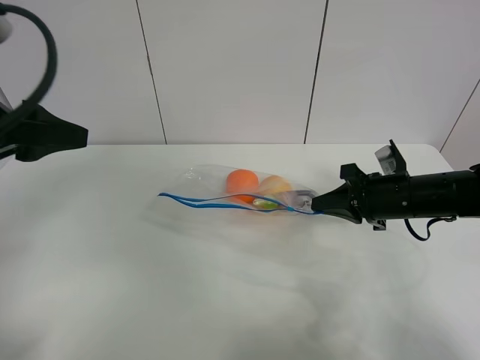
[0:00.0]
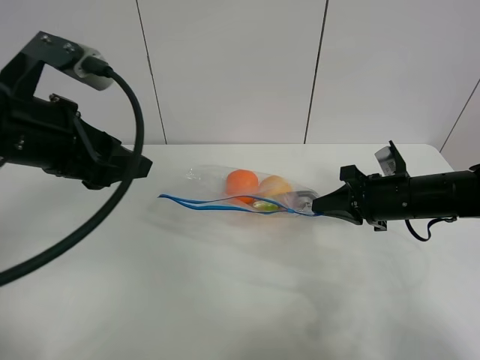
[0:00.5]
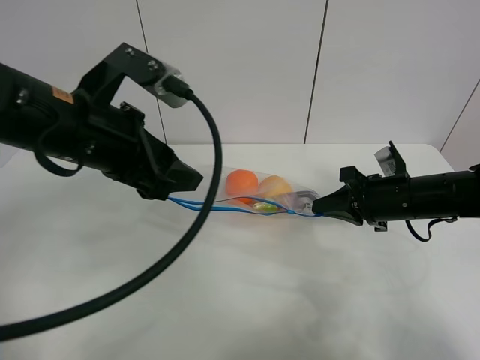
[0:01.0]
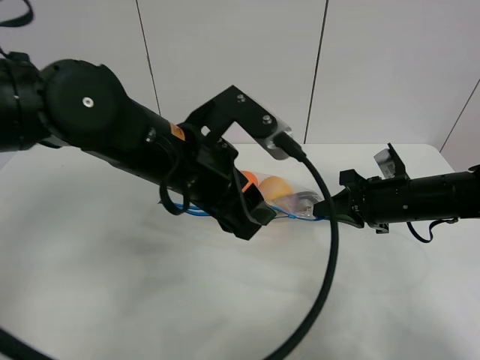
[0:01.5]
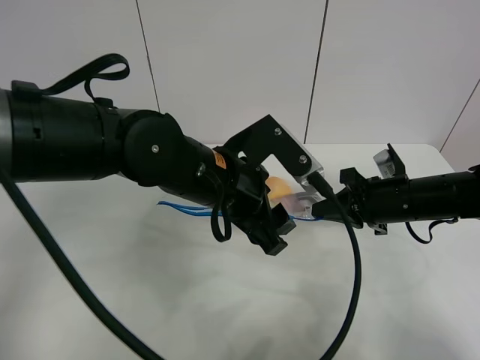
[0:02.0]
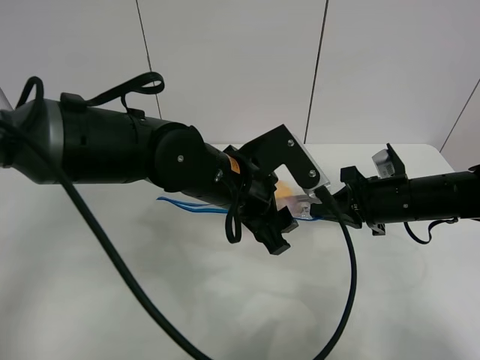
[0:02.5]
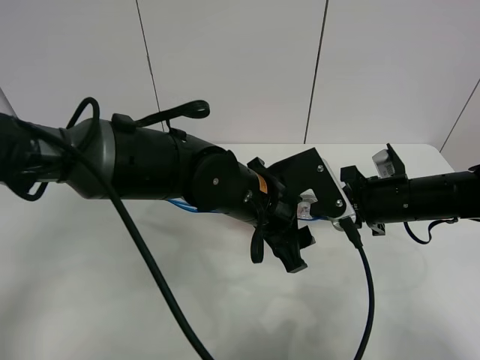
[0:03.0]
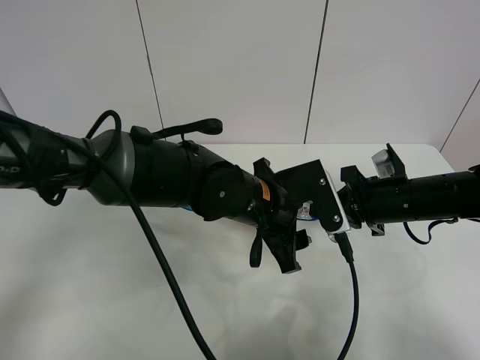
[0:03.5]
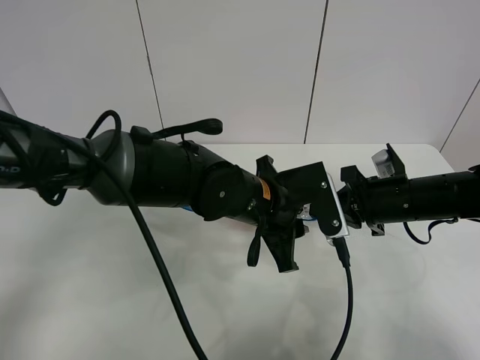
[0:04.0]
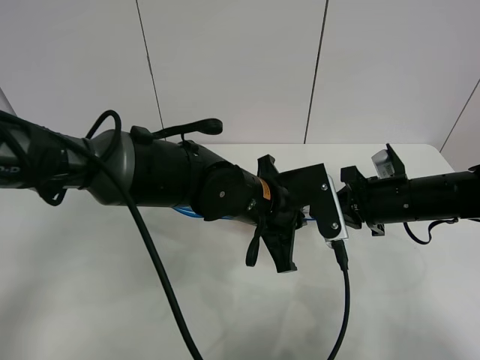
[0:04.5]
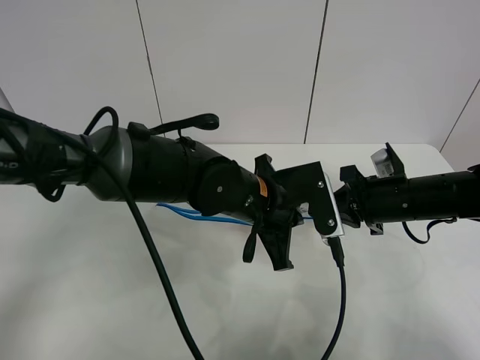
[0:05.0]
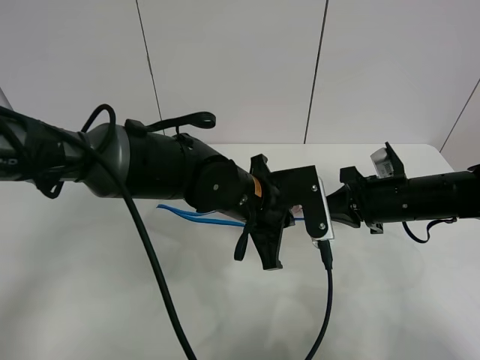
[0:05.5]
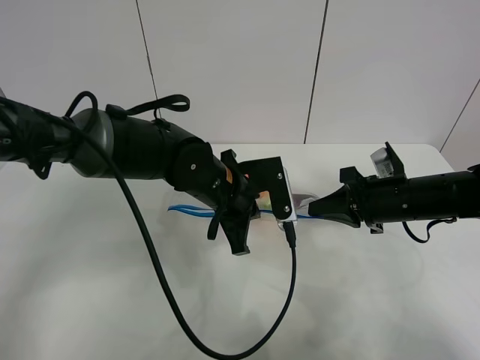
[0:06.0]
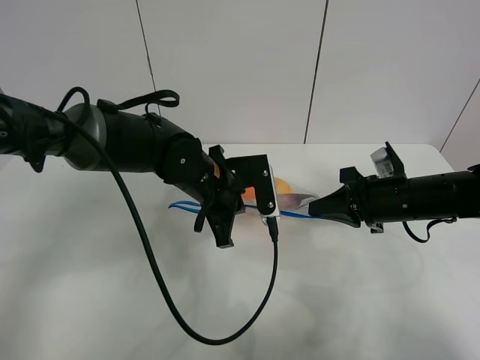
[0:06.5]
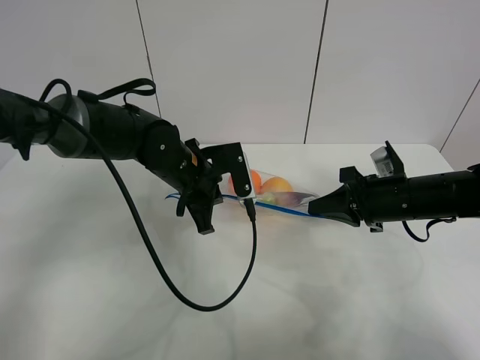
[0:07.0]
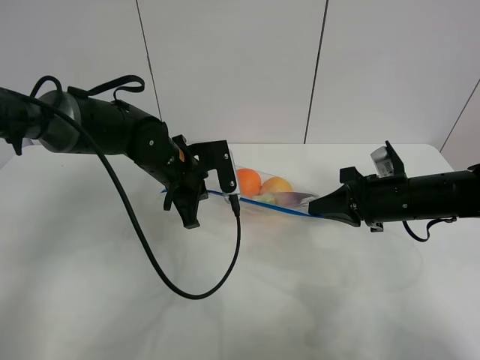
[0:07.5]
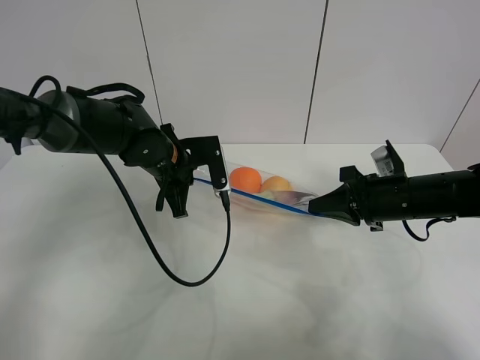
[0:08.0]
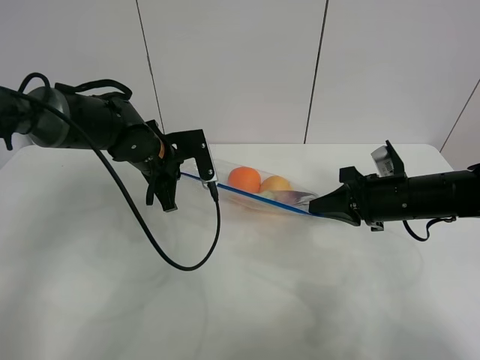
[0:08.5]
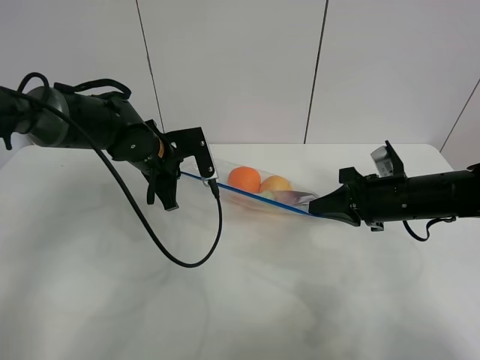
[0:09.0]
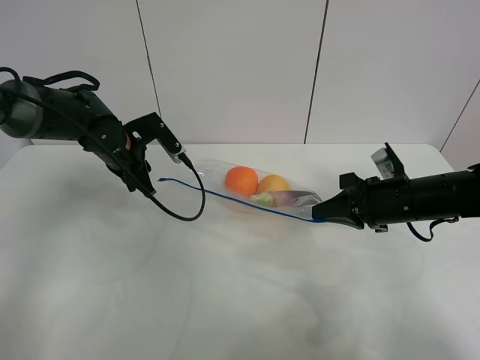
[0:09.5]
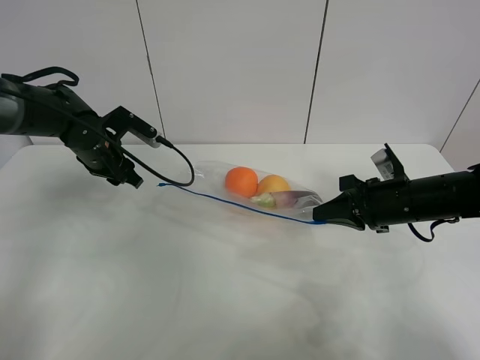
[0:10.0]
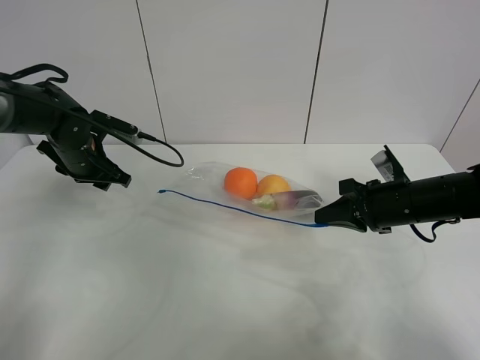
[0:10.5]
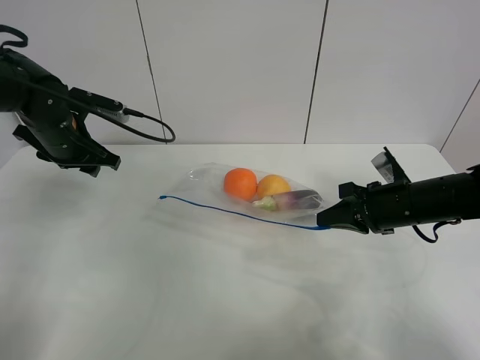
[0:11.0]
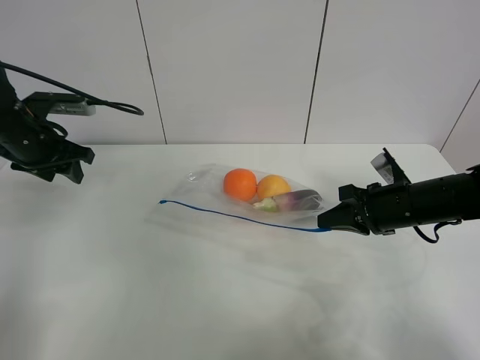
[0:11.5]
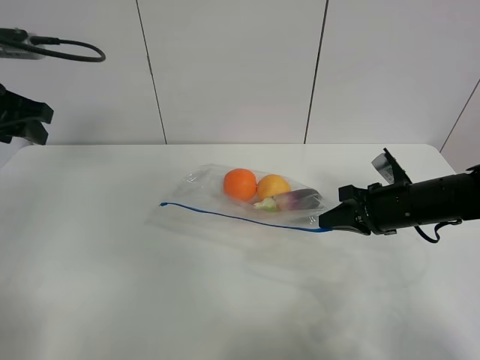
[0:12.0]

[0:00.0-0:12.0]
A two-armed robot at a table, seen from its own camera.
Step, 0:00.0 to 0:09.0: Pull the fruit bag with left gripper.
0:00.0 to 0:02.0: The left gripper heads to the right and downward, covering approximately 25 cm.
0:02.0 to 0:04.0: The left gripper heads downward, covering about 5 cm, and closes up.
0:04.0 to 0:06.0: The left gripper moves to the left, some 5 cm, and closes up.
0:06.0 to 0:08.0: The left gripper is displaced to the left and forward by approximately 10 cm.
0:08.0 to 0:10.0: The left gripper heads to the left, covering about 10 cm, and opens its fingers.
0:10.0 to 0:12.0: The left gripper shifts approximately 20 cm upward, backward and to the left.

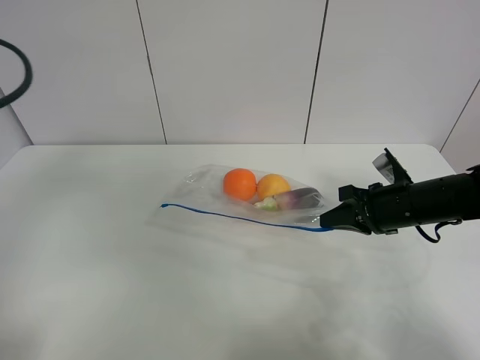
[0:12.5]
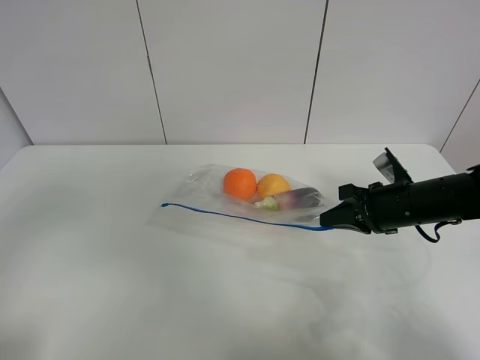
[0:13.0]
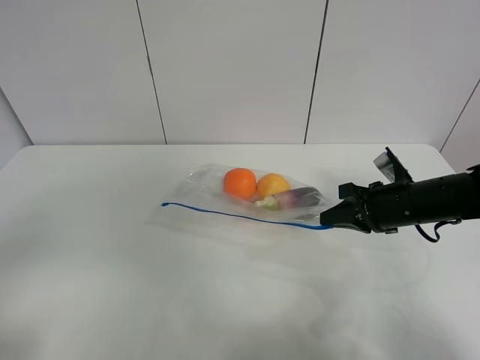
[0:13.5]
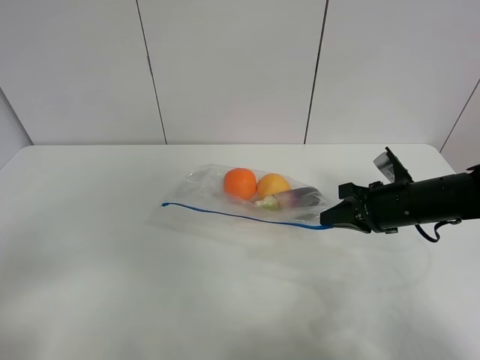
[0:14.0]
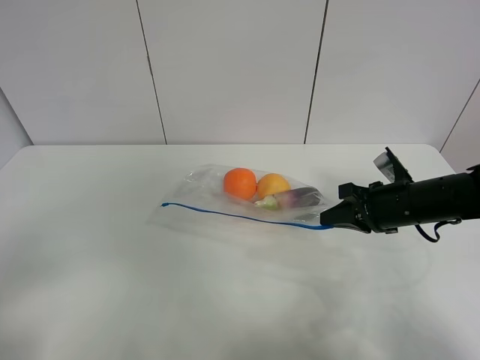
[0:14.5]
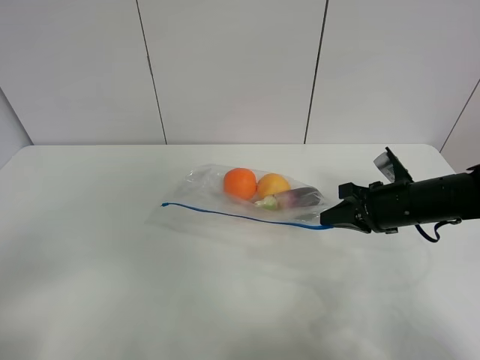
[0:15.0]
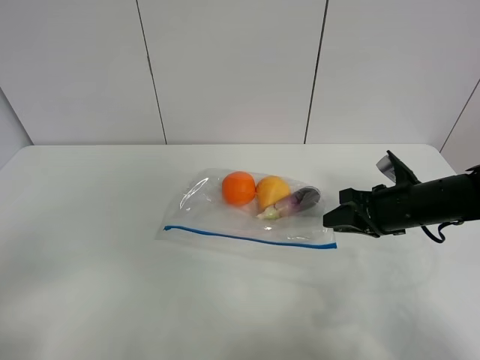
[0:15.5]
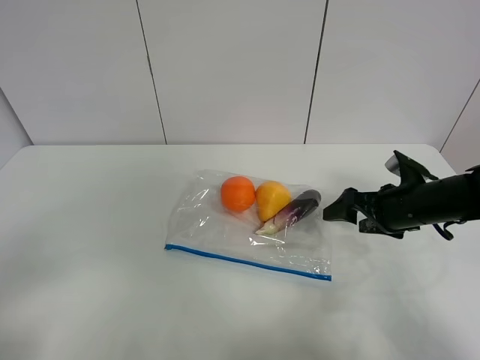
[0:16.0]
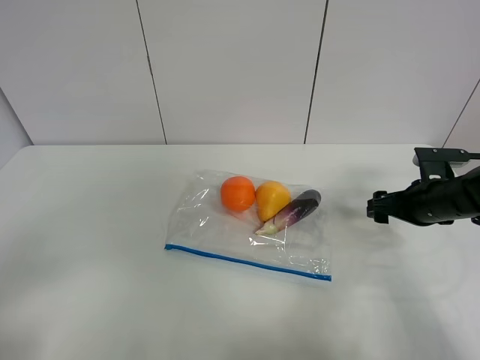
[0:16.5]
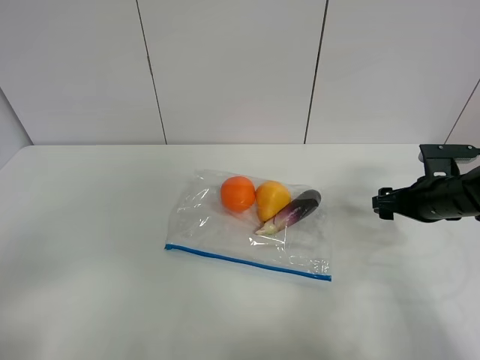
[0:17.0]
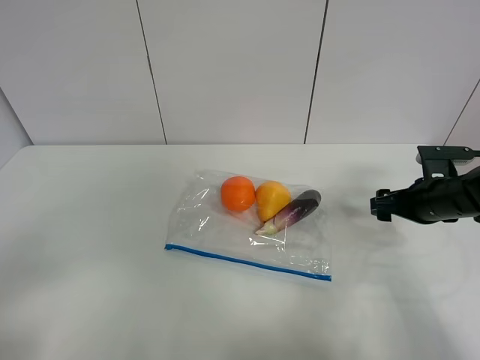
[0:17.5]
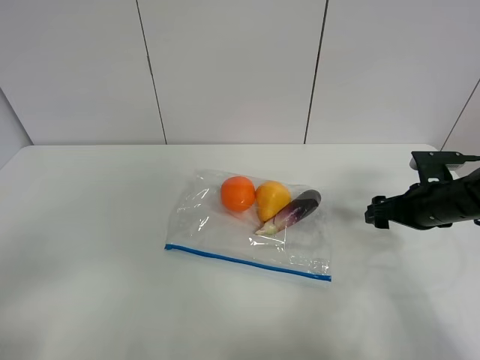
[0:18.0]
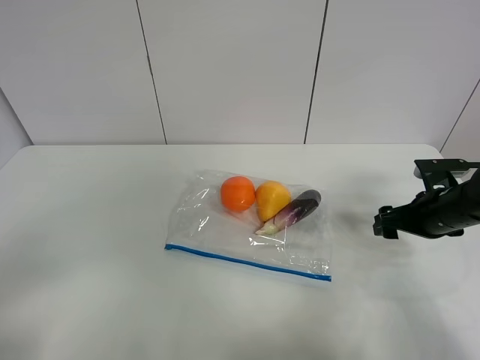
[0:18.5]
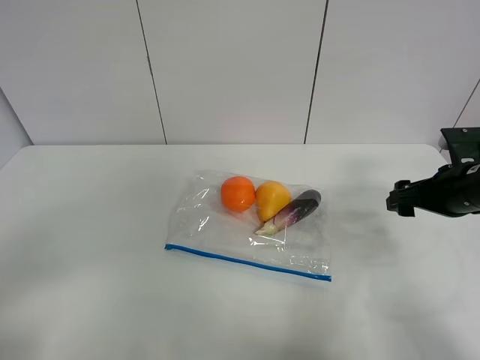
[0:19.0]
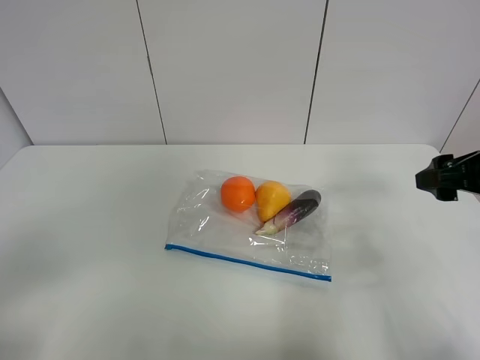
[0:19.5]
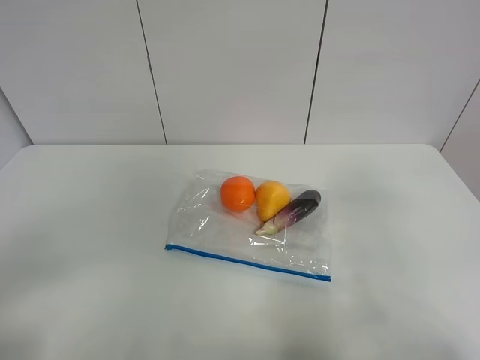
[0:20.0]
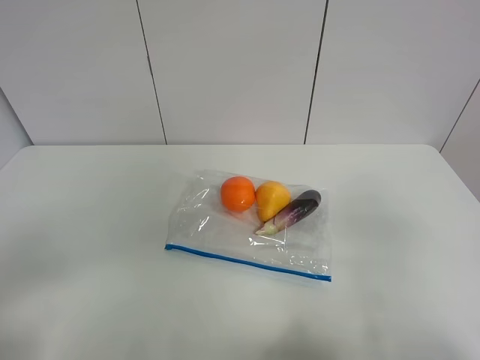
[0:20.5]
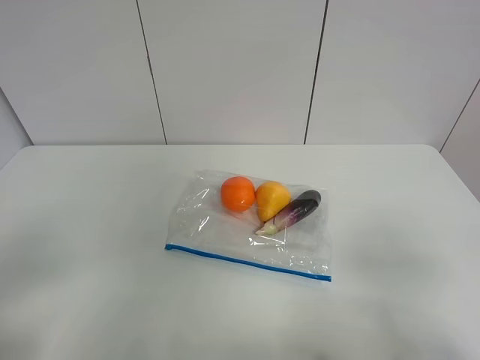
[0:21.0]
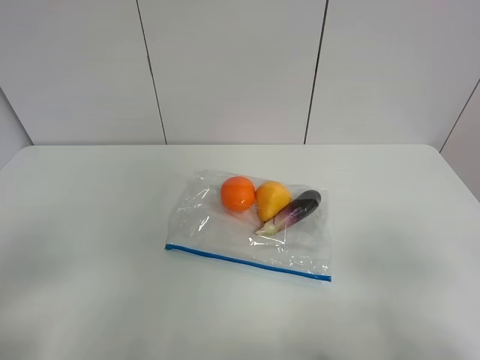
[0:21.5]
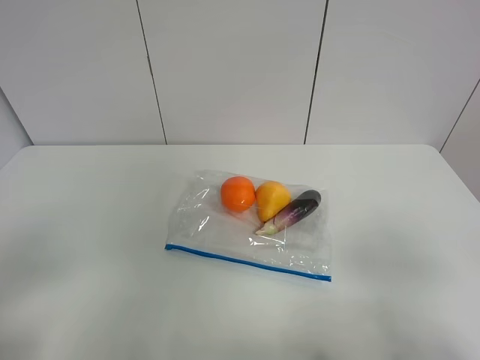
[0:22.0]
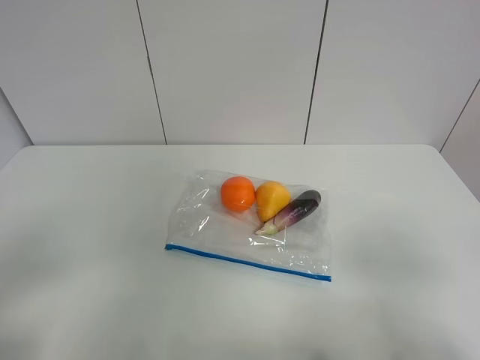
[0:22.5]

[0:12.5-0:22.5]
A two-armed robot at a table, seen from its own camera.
0:12.5 to 0:14.5: The left gripper heads backward, covering roughly 20 cm.
0:14.5 to 0:16.5: The right gripper moves to the right, roughly 5 cm, and opens.
0:16.5 to 0:18.5: There are only small adjustments of the grippers.
0:18.5 to 0:20.5: The right gripper goes about 30 cm backward and upward.
